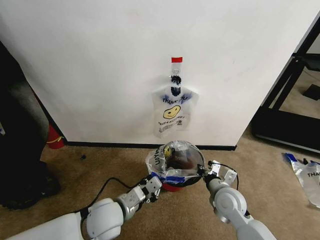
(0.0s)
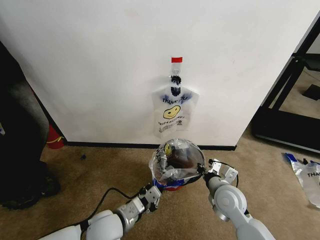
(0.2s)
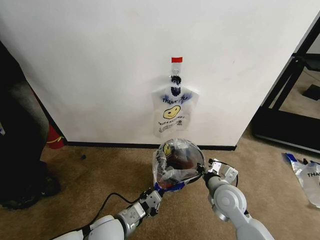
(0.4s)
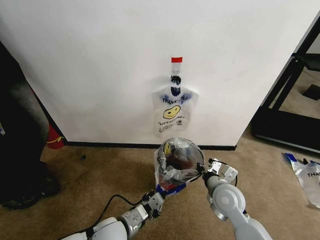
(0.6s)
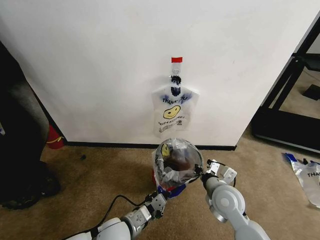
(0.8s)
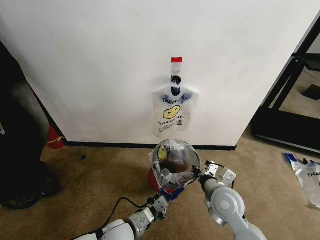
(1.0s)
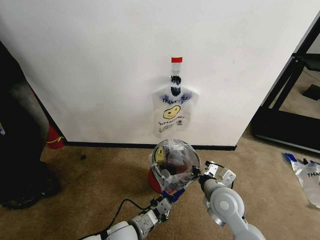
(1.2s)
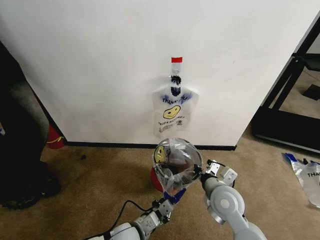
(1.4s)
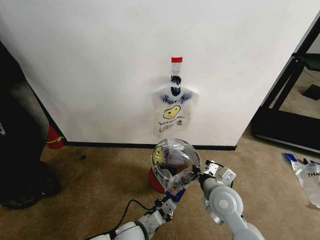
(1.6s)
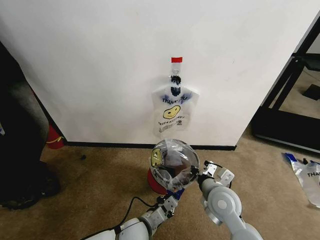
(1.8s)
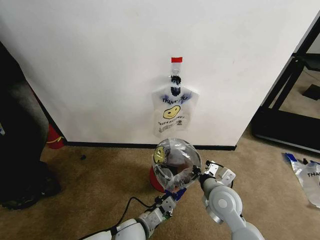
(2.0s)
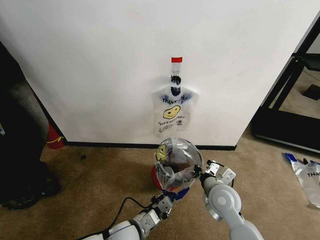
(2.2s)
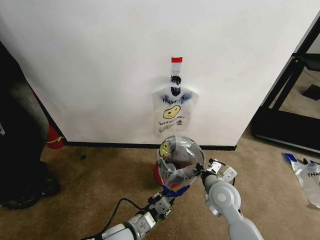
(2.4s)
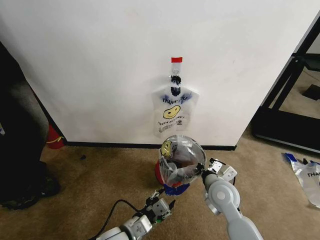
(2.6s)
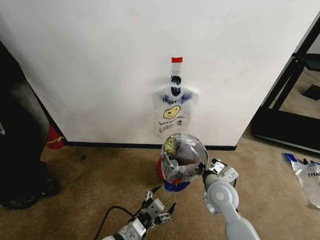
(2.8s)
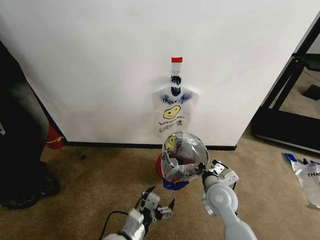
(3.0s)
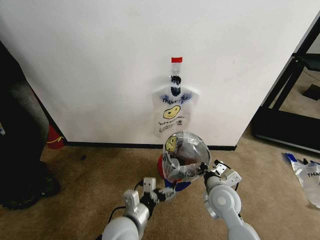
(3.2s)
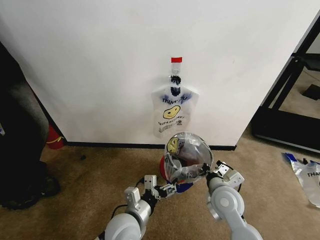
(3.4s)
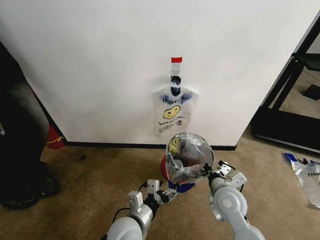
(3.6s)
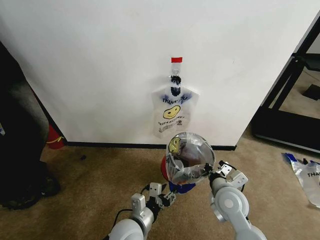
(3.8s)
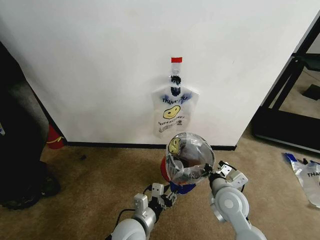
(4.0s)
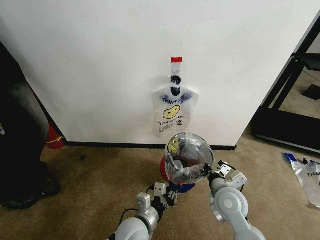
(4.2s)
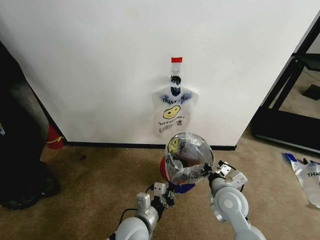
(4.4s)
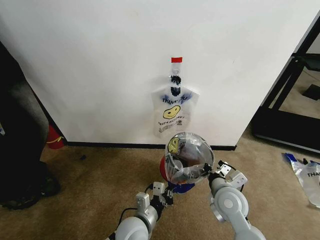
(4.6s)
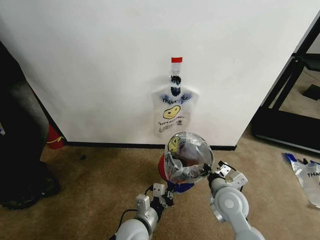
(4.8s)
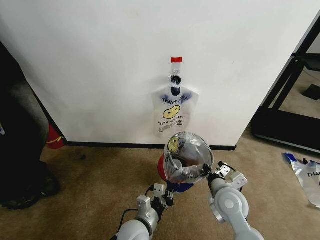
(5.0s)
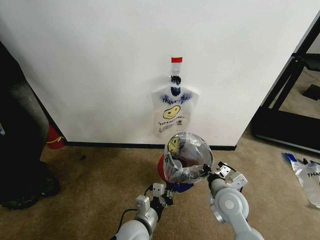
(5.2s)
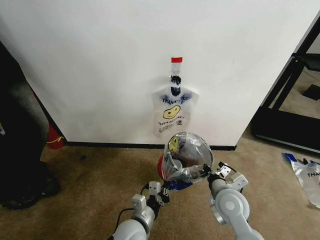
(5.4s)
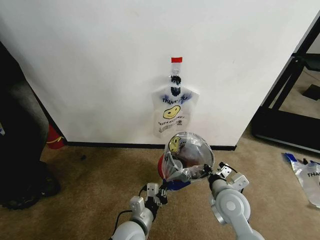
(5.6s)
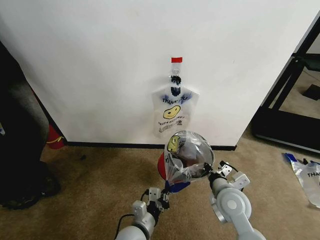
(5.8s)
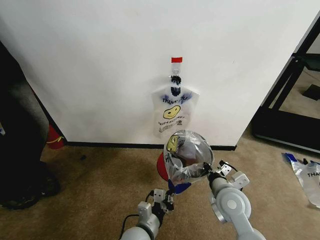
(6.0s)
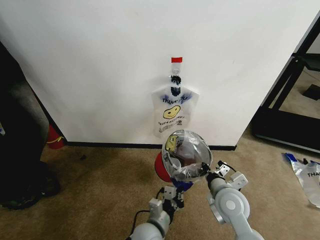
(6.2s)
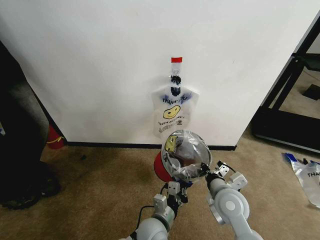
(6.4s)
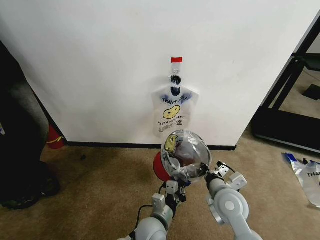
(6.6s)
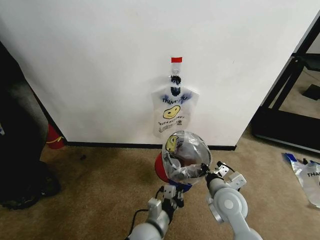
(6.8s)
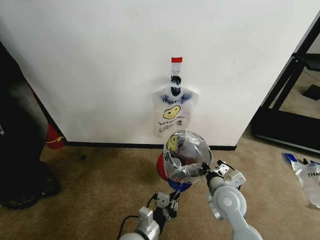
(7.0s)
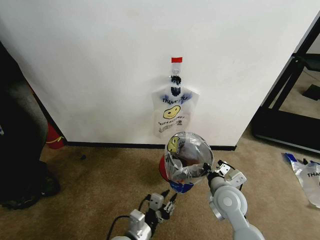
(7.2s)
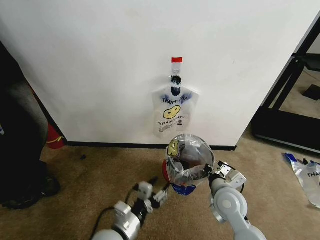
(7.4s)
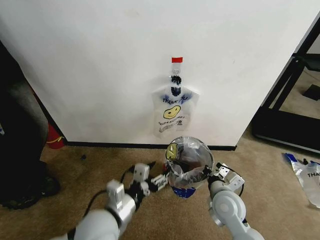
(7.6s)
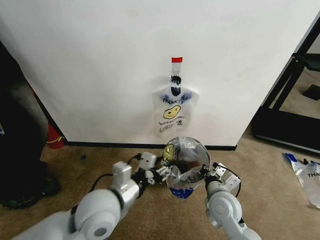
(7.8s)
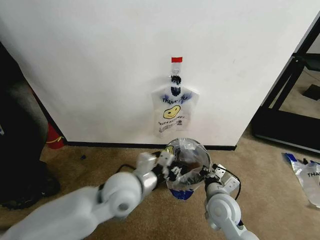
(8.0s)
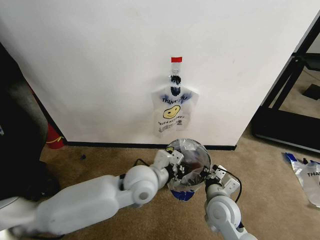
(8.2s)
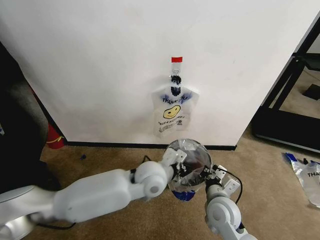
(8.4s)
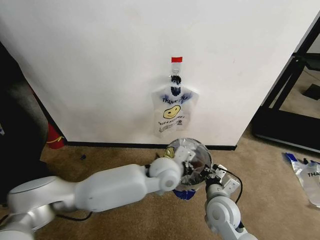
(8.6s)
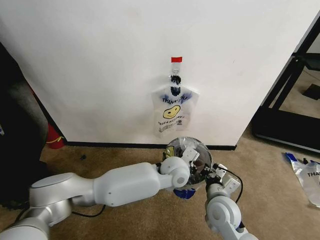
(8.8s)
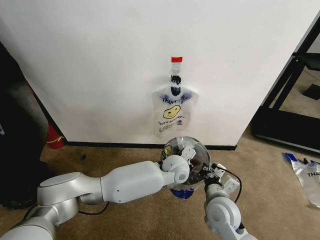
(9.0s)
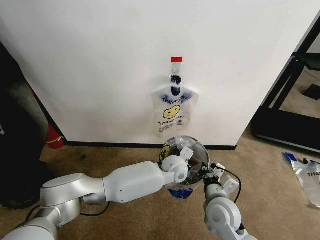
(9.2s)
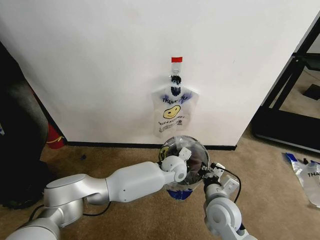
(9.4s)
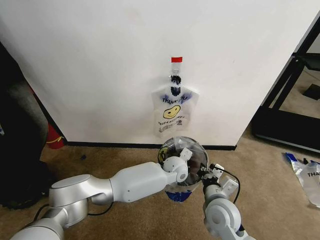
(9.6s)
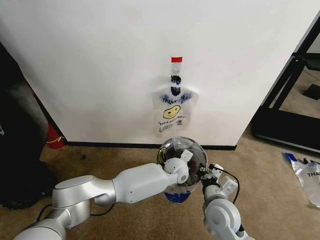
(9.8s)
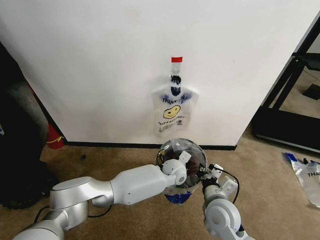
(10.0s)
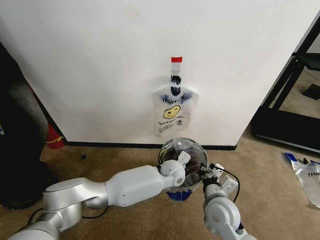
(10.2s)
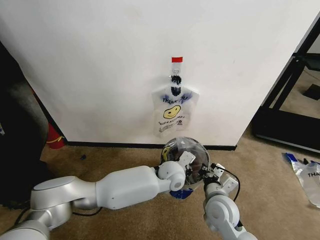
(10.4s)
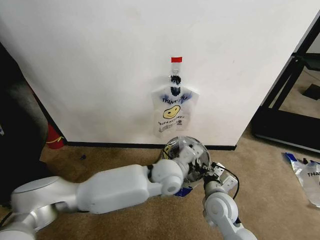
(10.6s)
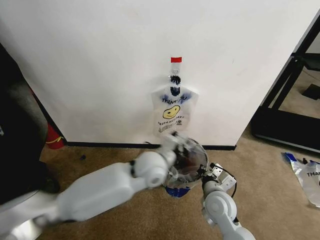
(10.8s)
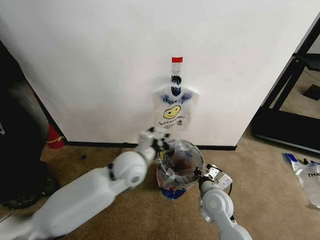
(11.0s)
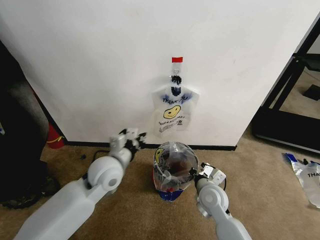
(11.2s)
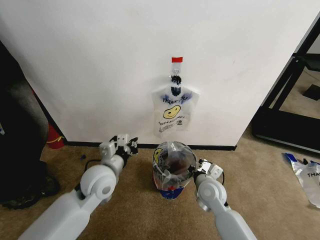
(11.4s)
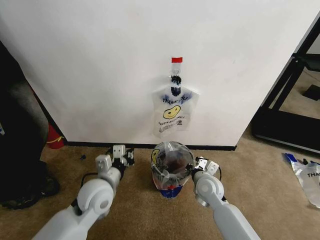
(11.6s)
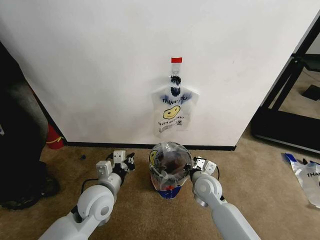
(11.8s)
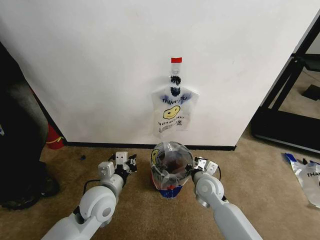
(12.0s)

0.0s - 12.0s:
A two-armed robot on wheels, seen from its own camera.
Task of the whole recording: Pick up the garbage bag from the wall and place it over the trash bin.
0.0s - 1.6s: The left gripper travels downward and to the right by roughly 15 cm. The right gripper changes place by some 5 cm.
1.6s - 3.0s: The left gripper heads upward, covering approximately 5 cm, and opens.
3.0s - 4.4s: The left gripper moves roughly 5 cm, and closes up.
4.4s - 6.0s: The grippers stay close to where they were, moving slightly.
6.0s - 7.6s: The left gripper is displaced upward and to the left by roughly 15 cm, and opens up.
7.6s - 9.0s: The left gripper travels forward and to the right by about 30 cm, and closes.
10.4s - 12.0s: The right gripper is displaced forward by approximately 10 cm, while the left gripper is displaced to the left and backward by some 25 cm.

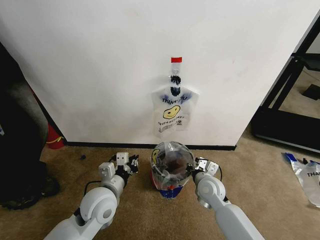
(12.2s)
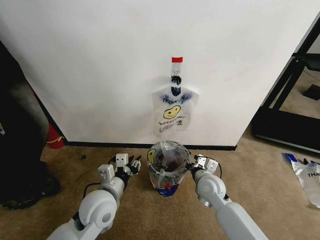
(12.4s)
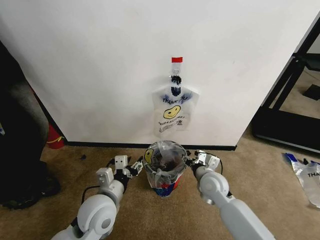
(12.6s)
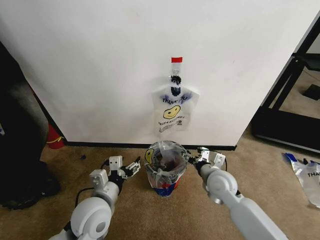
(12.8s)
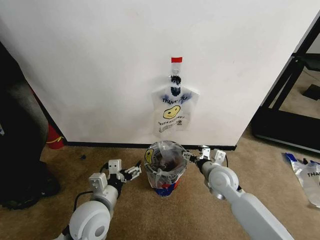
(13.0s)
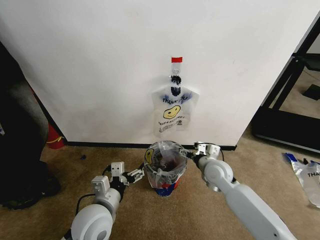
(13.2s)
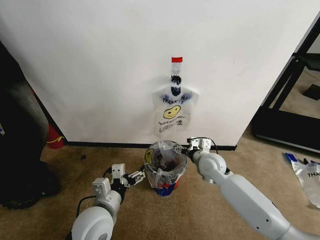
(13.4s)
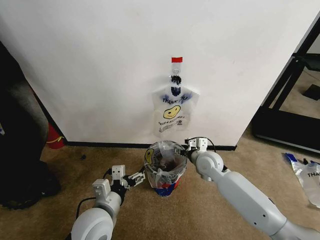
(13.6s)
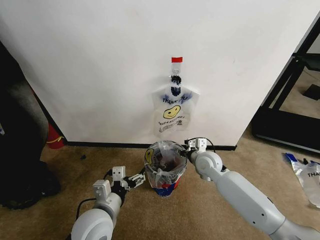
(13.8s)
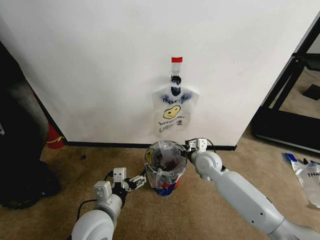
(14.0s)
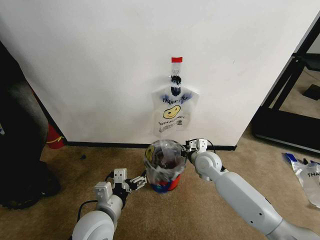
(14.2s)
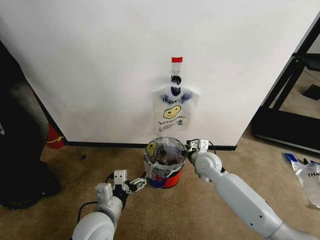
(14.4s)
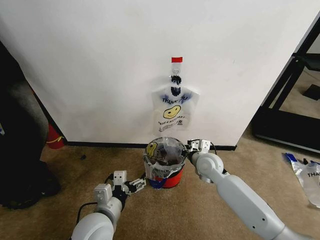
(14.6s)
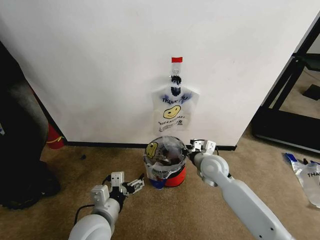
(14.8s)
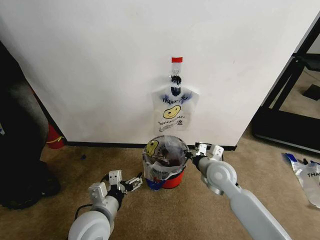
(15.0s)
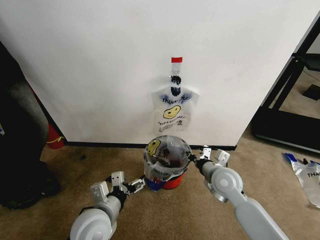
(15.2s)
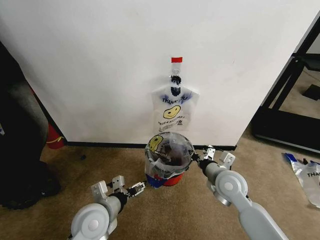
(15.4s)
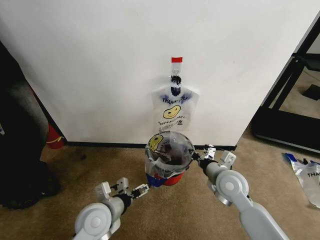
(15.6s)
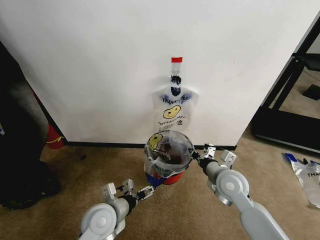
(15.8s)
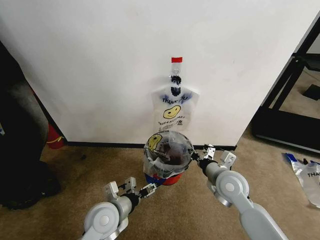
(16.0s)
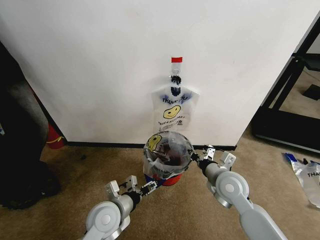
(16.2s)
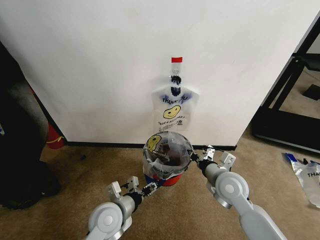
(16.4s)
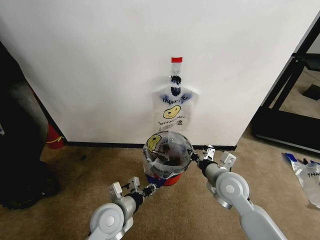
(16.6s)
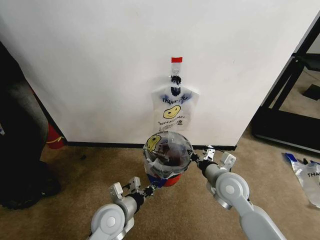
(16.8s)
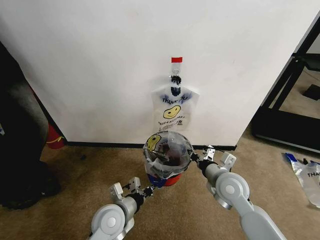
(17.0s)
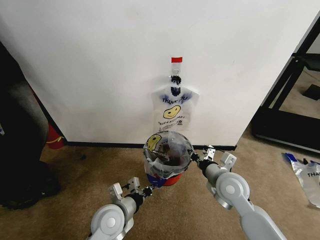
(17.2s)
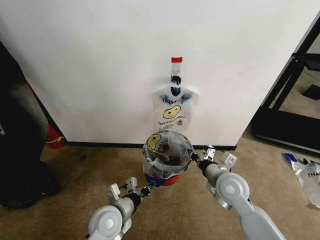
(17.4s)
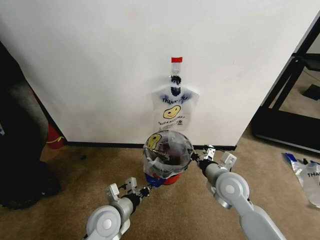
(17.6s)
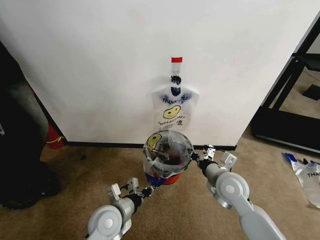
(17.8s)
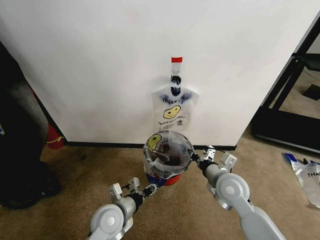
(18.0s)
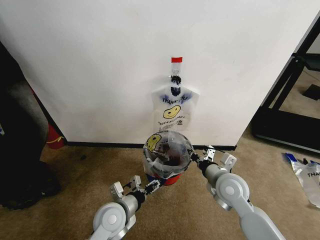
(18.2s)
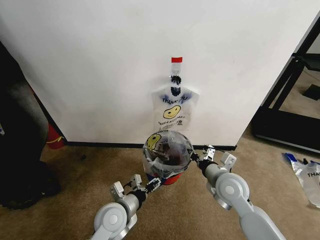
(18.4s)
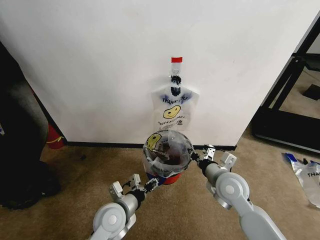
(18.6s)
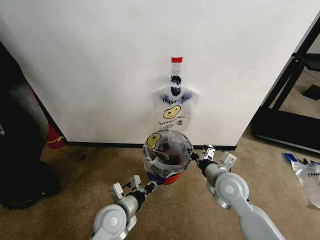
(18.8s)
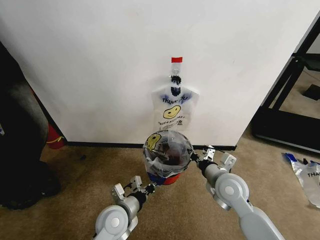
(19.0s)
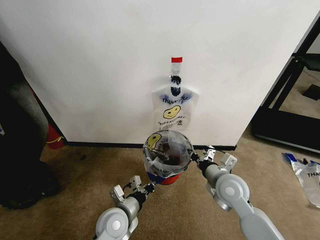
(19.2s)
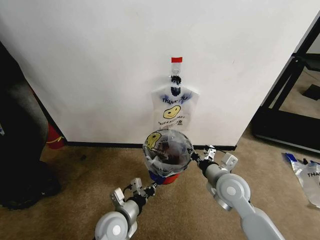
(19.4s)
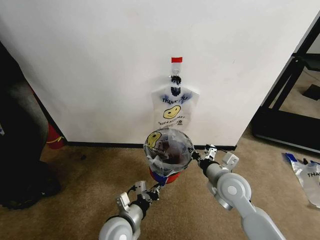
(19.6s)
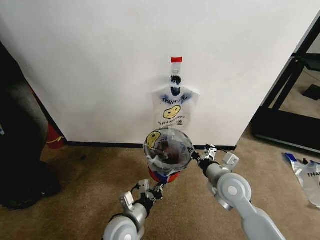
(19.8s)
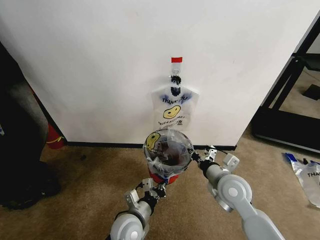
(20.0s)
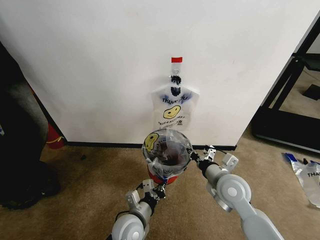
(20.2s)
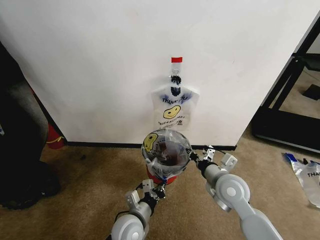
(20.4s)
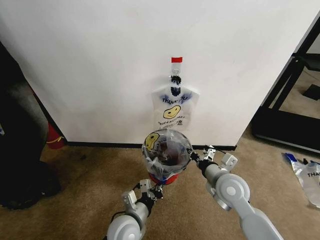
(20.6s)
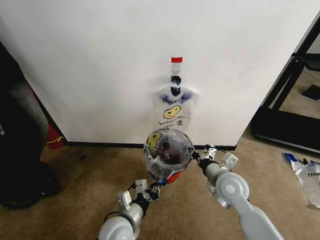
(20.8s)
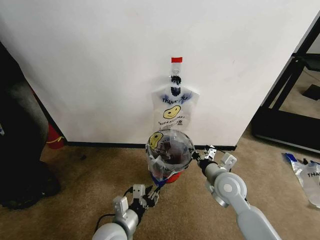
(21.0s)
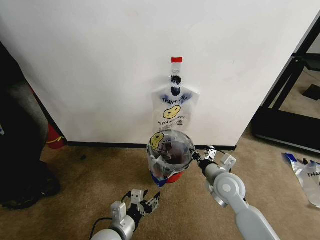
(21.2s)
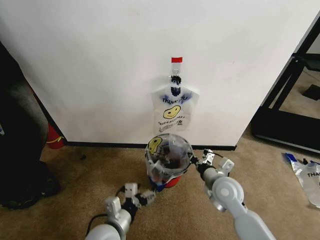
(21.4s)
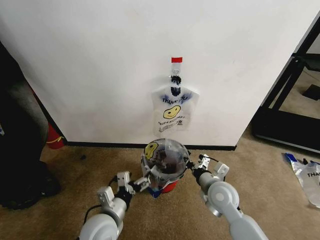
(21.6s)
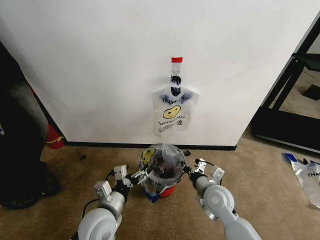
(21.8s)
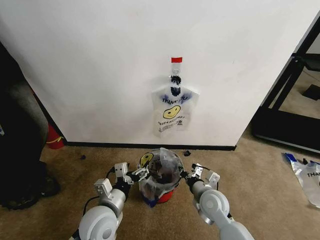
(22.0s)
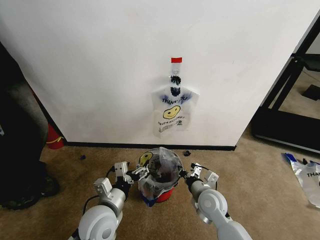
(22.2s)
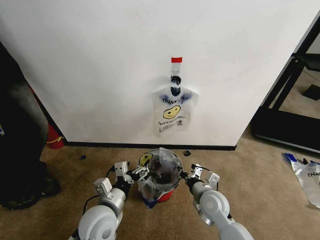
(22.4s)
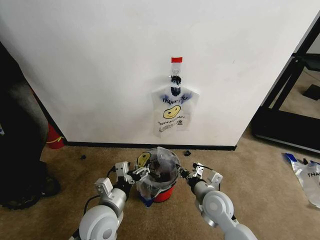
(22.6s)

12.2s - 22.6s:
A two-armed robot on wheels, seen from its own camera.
Task of the whole recording: Pick up the garbage bag from the wall and place it over the trash bin.
12.2s - 13.6s: The left gripper goes about 5 cm backward, and opens up. The right gripper is displaced forward and upward by roughly 10 cm, and opens.
13.6s - 15.2s: The right gripper shifts about 10 cm backward, and closes its fingers.
15.2s - 16.6s: The left gripper shifts by some 5 cm, and closes.
16.6s - 18.2s: The left gripper closes and opens again.
18.2s - 19.6s: The left gripper closes its fingers.
19.6s - 21.2s: The left gripper opens up.
21.2s - 22.6s: The left gripper heads upward, covering some 5 cm, and opens; the right gripper goes some 5 cm downward.
